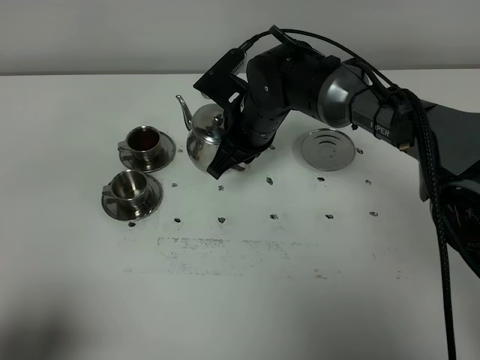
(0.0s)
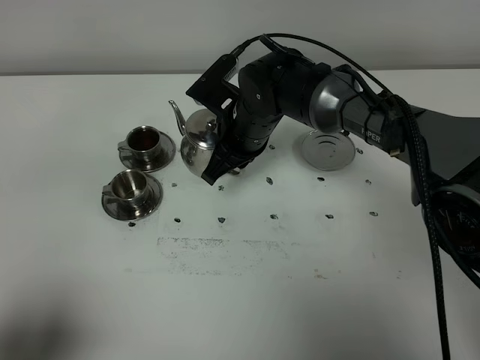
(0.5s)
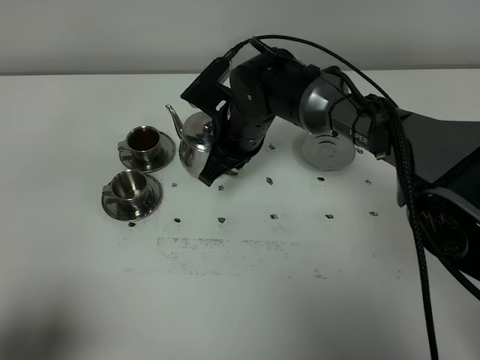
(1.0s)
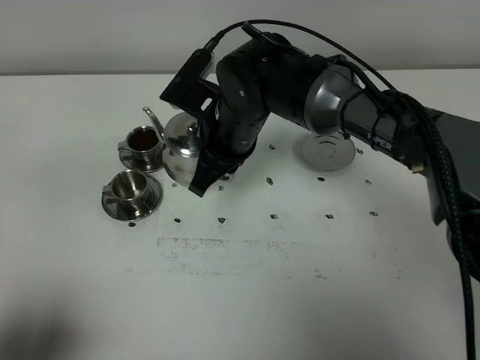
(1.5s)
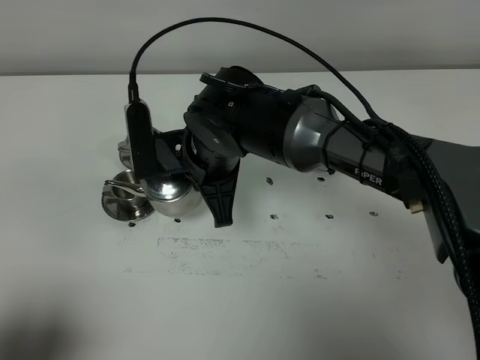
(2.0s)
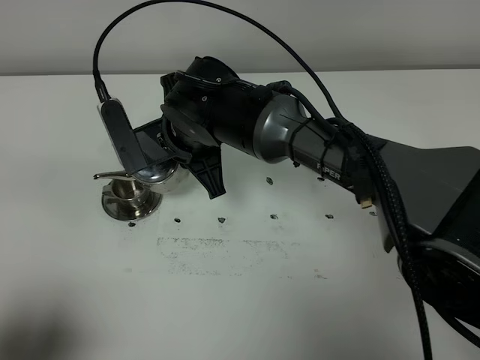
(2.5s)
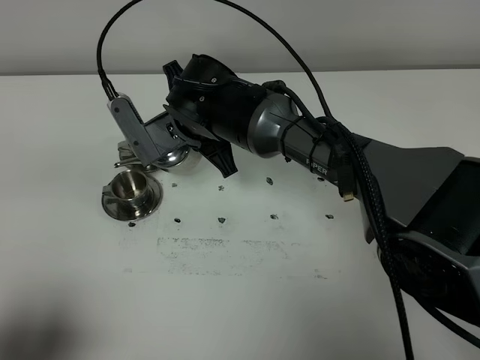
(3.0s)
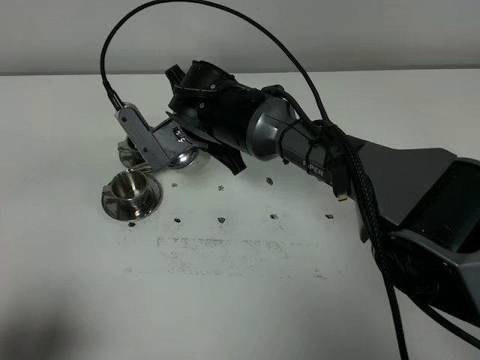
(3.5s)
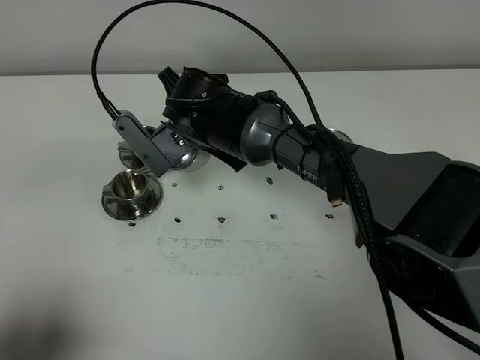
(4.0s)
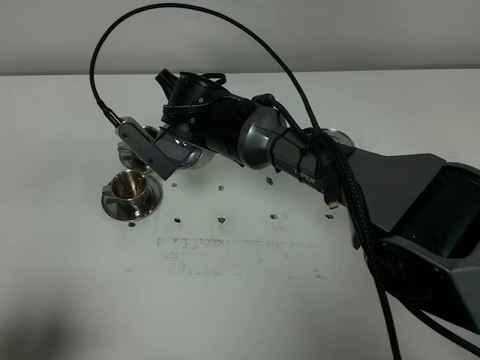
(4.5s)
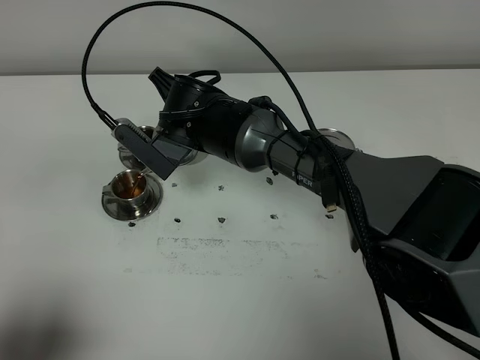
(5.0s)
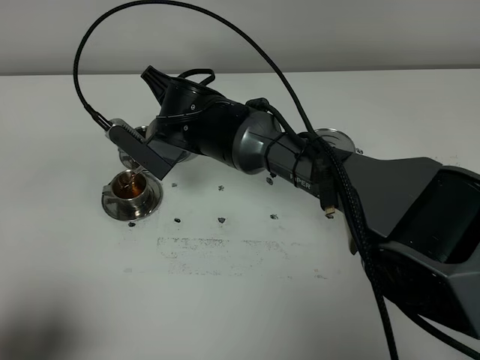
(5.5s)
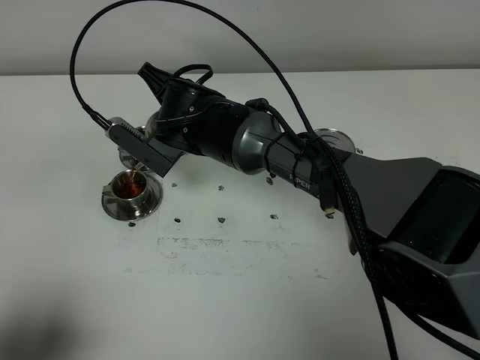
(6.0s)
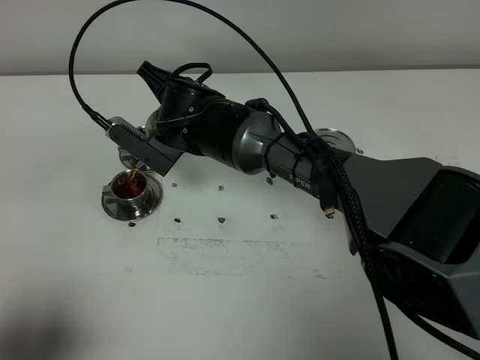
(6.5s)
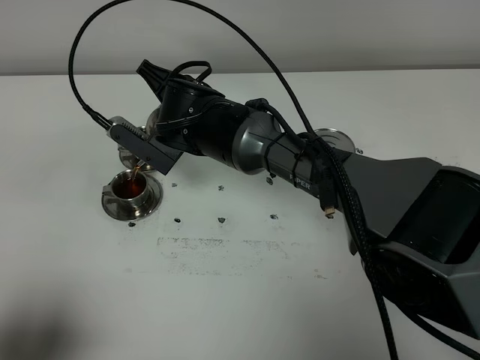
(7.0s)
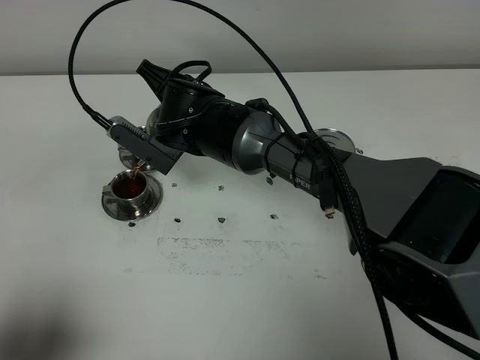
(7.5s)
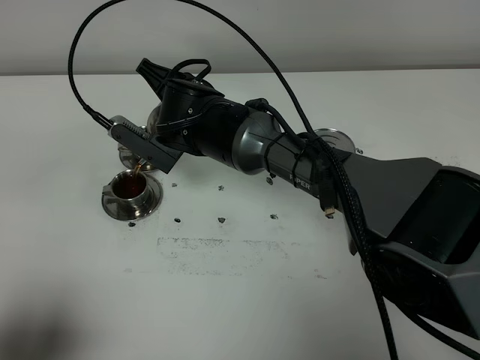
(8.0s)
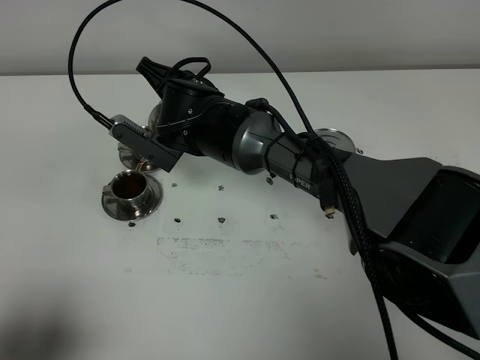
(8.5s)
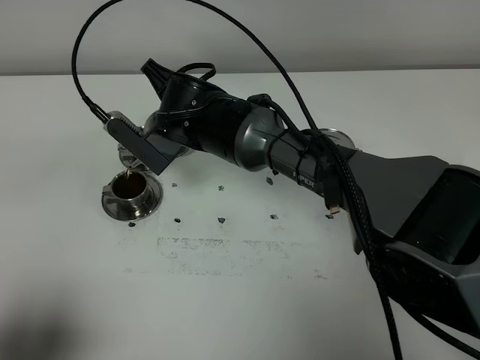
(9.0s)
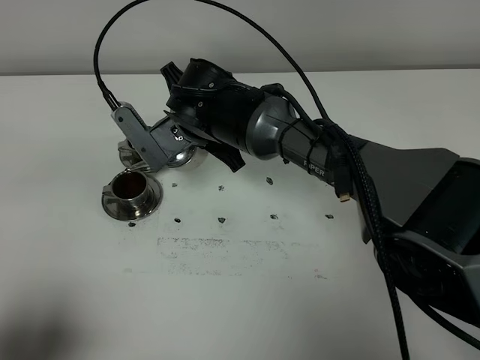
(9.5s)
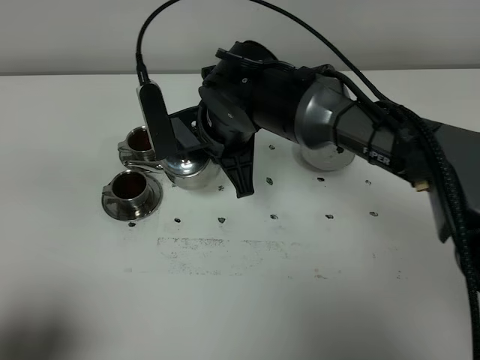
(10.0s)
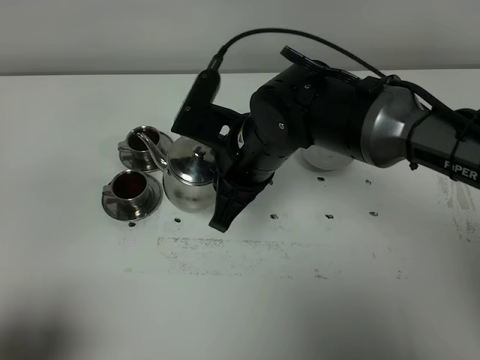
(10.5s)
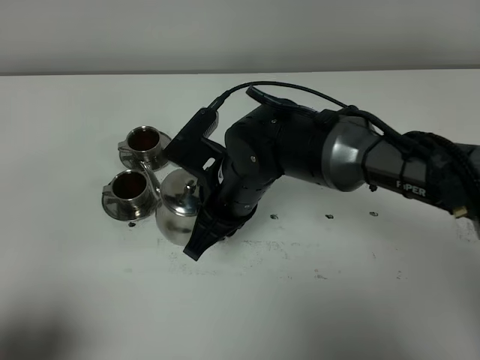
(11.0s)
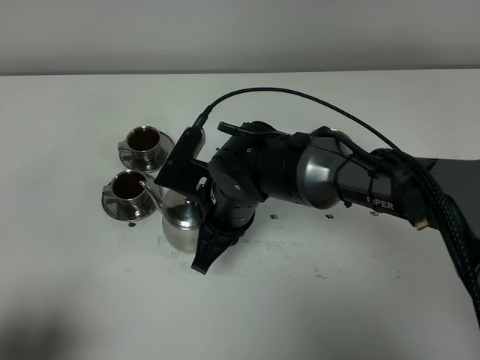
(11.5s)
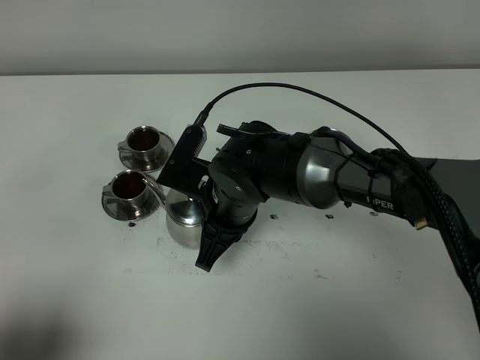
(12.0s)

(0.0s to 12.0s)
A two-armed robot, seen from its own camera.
Task of the whole recording: grasp the stainless steel teapot and pour the tea into the two stainless steel teacups one by one, put the stainless steel teapot back in its original place.
Step, 0.0s - 9.5s: Pour tea into the teacup with the right gripper.
0.0s - 2.0s: The right gripper heads backward, covering some 10 cm.
2.0s - 4.0s: The right gripper shifts some 5 cm forward.
4.0s - 6.0s: The grippers move only a little.
6.0s - 8.0s: Neither gripper changes place.
8.0s - 10.0s: The right gripper is displaced to the right by roughly 5 cm.
10.0s - 12.0s: The right gripper moves downward and backward, about 10 cm.

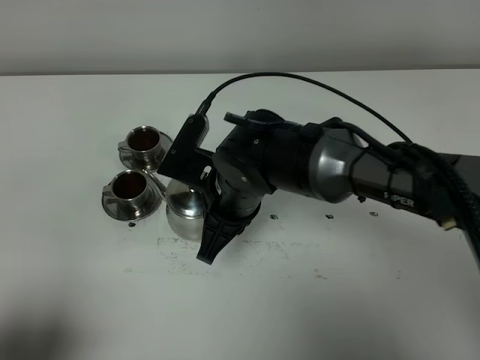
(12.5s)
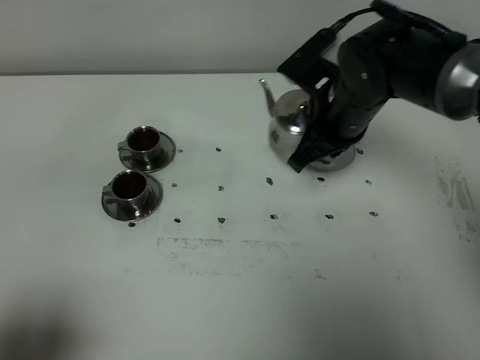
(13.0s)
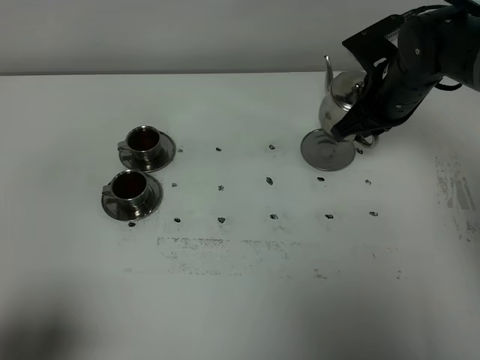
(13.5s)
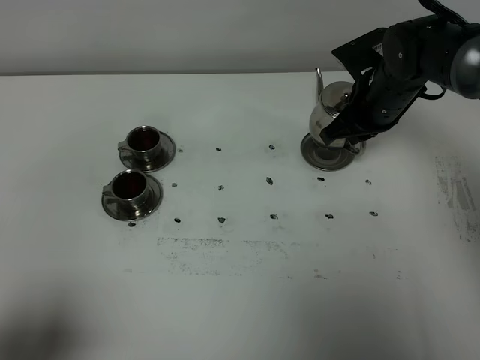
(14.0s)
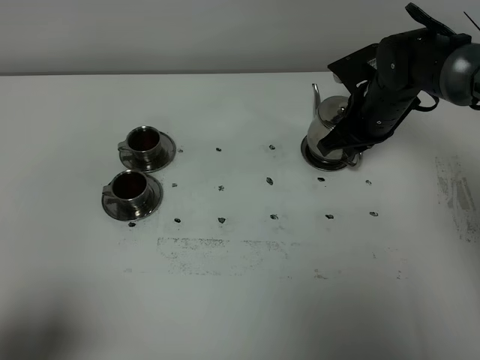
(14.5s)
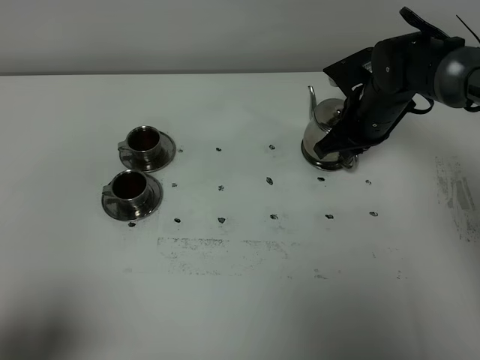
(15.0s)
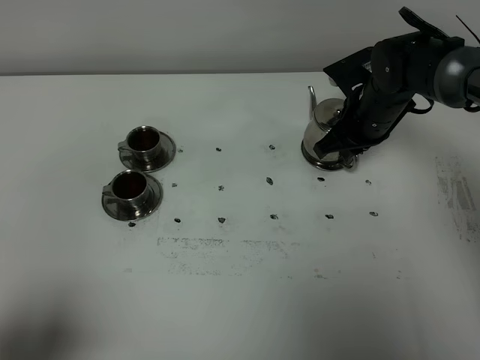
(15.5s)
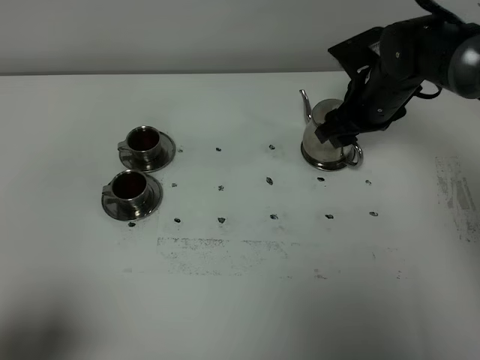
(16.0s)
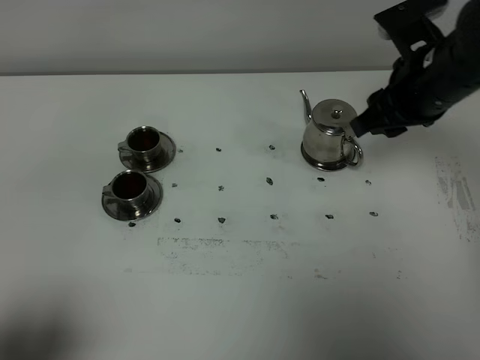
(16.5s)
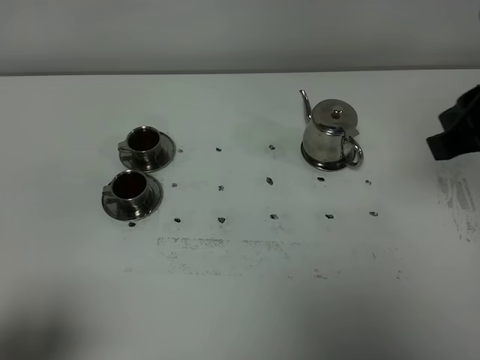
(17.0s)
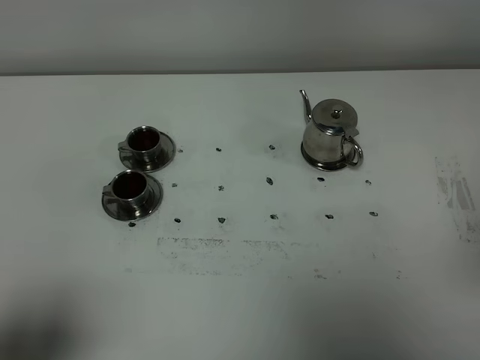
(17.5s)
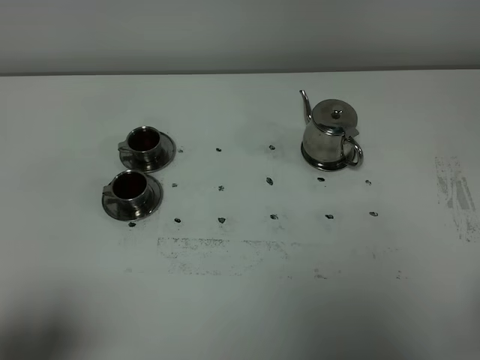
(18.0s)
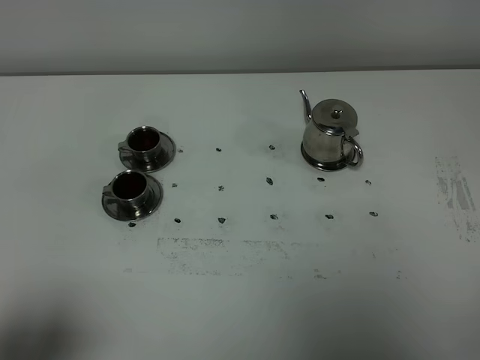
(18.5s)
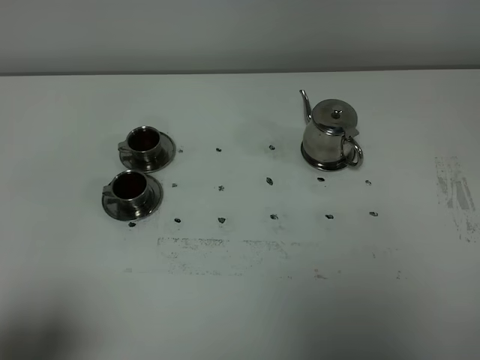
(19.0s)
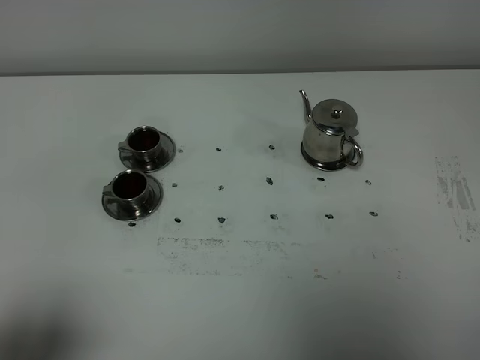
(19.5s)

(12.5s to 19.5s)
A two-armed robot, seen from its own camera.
Task of the whole recording: grasp the stainless steel teapot and pour the tea into the two stainless steel teacups one by one, put the stainless steel teapot back in its original place.
12.5s - 14.5s: The right gripper is displaced to the right and forward by about 25 cm.
14.5s - 16.0s: The right gripper opens.
16.0s - 17.5s: The right gripper goes approximately 35 cm backward and upward, and closes.
